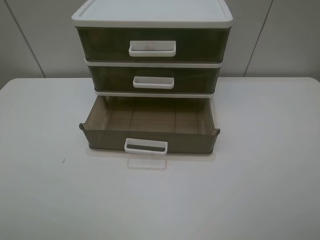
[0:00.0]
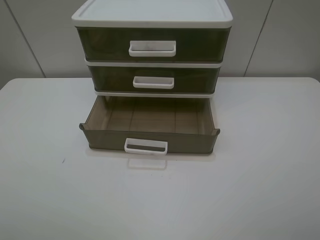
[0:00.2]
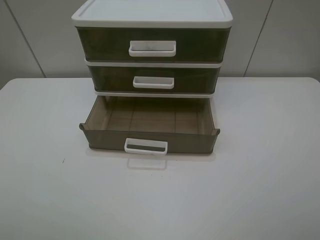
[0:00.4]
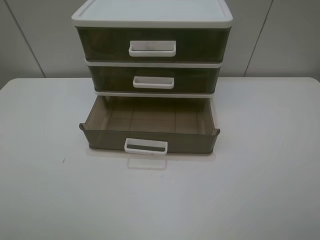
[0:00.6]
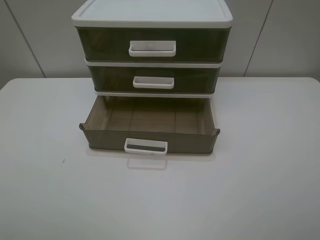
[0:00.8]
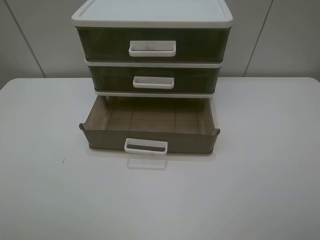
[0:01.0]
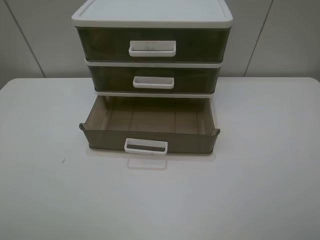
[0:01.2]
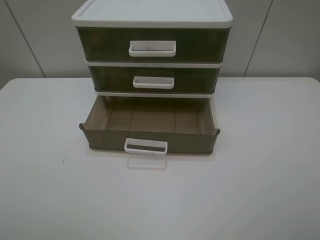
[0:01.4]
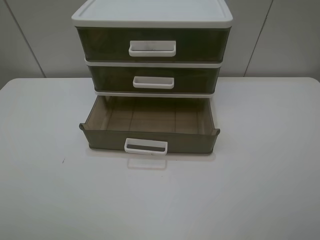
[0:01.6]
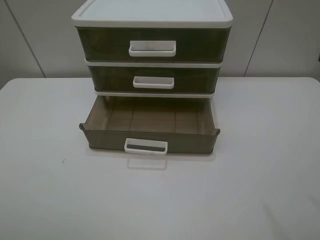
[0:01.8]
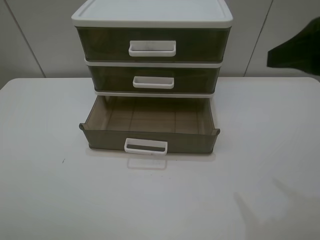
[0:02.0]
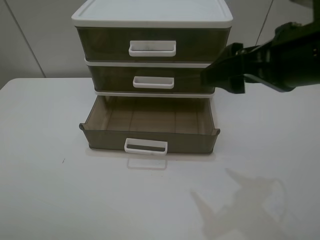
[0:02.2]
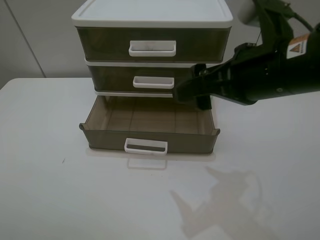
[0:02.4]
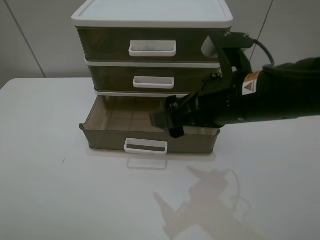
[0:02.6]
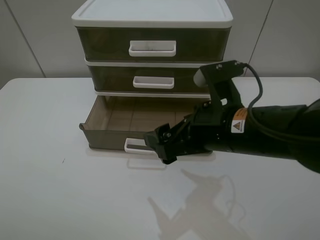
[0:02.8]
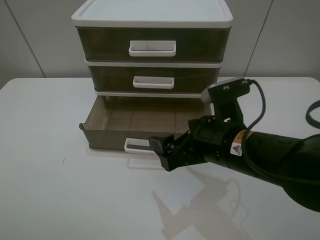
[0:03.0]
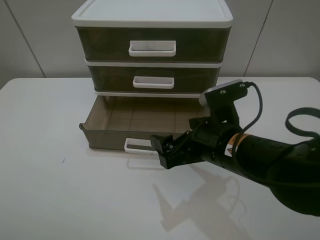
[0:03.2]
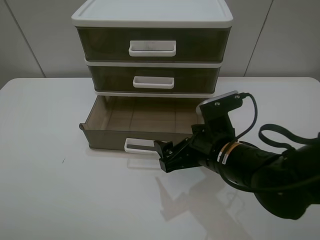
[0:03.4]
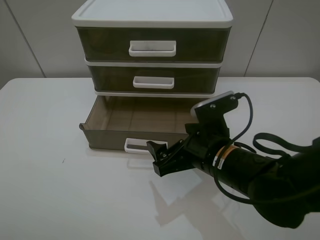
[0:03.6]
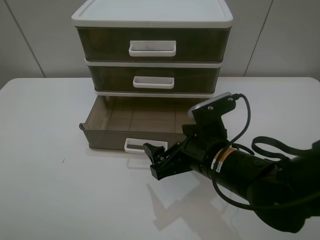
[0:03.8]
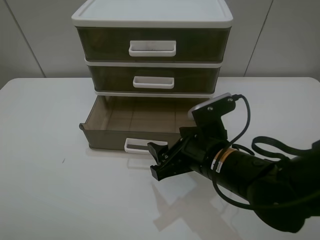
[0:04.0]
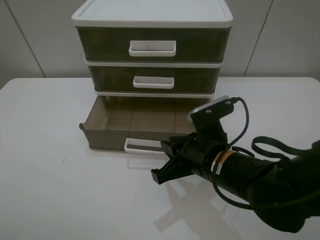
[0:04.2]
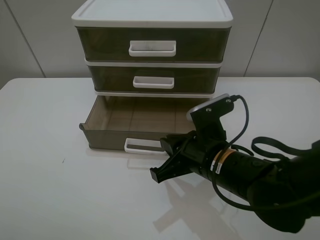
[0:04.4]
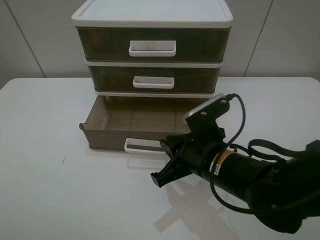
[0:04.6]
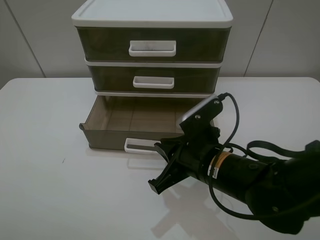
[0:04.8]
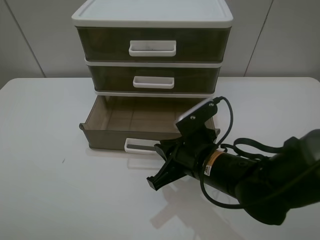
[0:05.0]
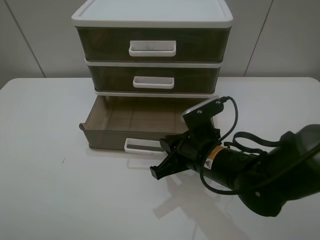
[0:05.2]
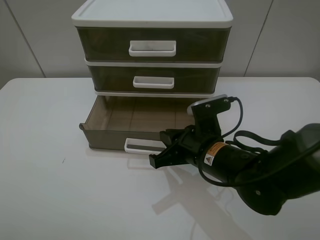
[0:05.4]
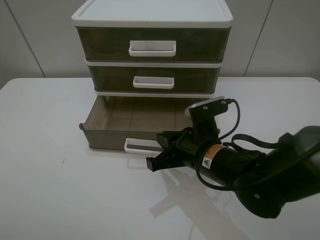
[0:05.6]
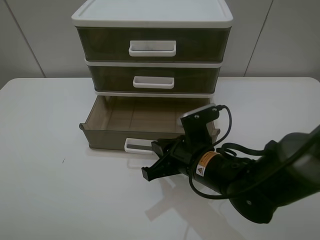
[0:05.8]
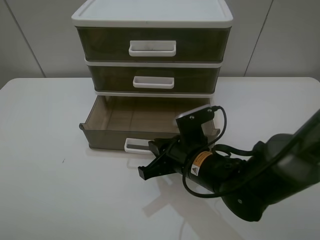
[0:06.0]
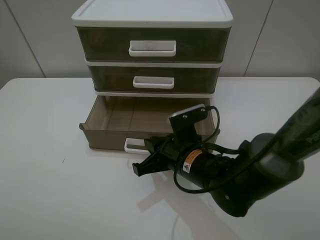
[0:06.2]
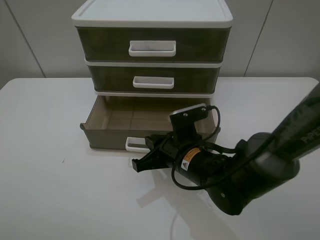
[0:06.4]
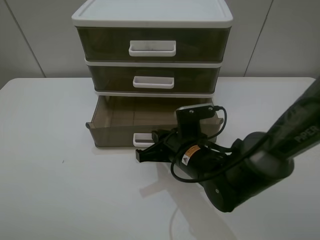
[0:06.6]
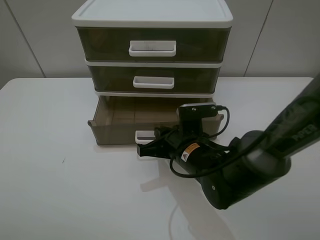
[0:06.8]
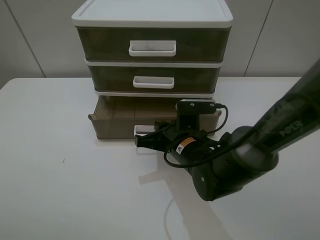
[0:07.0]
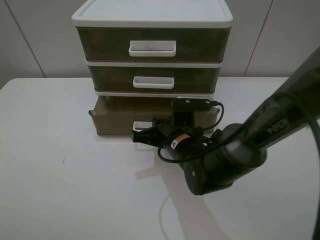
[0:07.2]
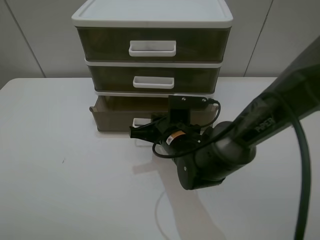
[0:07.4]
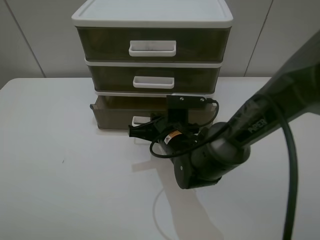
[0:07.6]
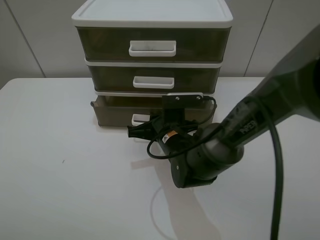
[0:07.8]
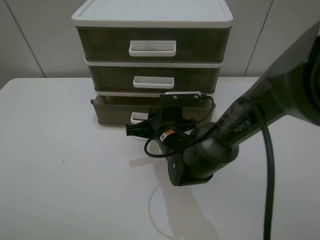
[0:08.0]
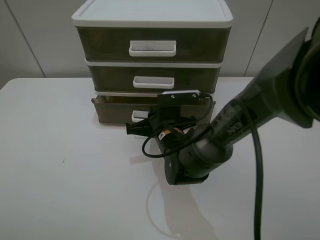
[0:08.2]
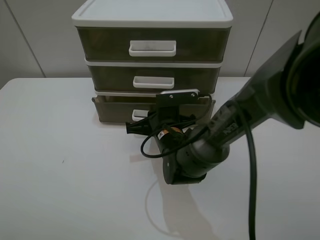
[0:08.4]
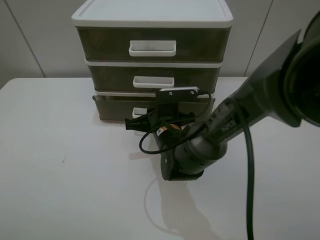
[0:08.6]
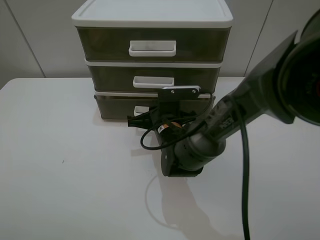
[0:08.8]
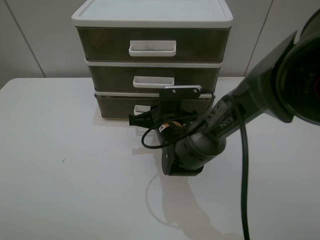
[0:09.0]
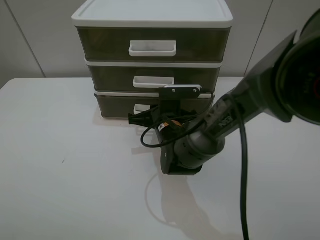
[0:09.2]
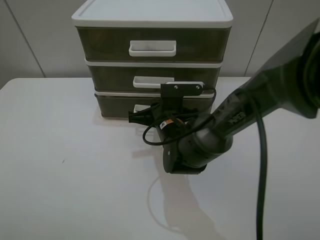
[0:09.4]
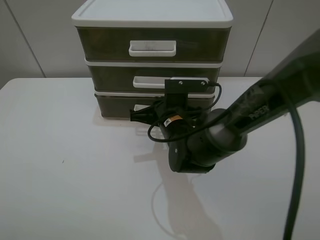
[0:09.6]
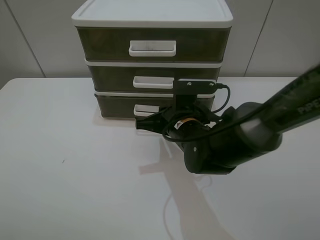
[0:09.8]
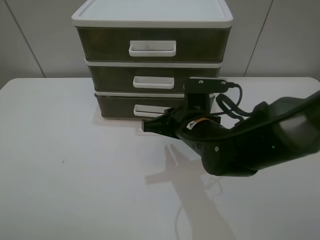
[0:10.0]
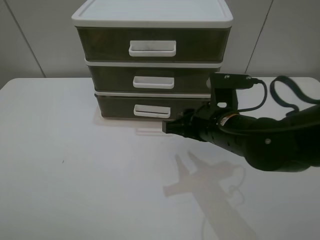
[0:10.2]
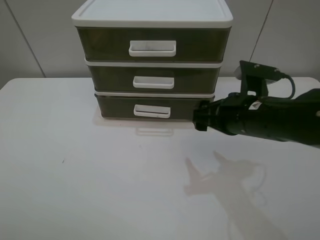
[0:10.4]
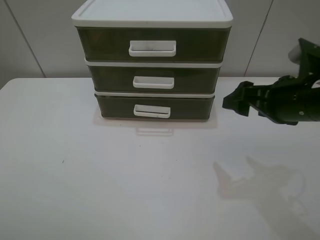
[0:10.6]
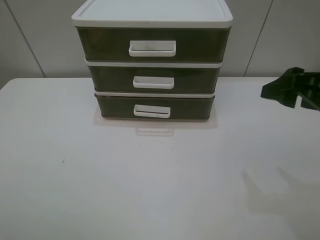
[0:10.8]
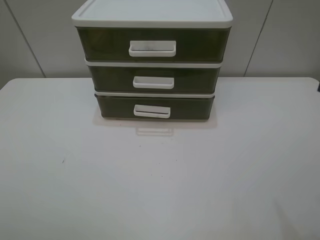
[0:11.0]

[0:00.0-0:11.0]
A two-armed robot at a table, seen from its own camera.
Task of the whole recording: close the bottom drawer.
Step, 0:00.0 to 0:06.2: Use the right gripper to contact the bottom layer of the storage cabinet.
Step, 0:06.4 to 0:09.2: Push the bottom drawer closed.
0:01.6 to 0:03.2: The right gripper heads to the left, downward and forward, covering some 30 cm.
0:03.2 to 0:04.8: The right gripper closes.
0:04.8 to 0:06.2: The right gripper changes place by approximately 5 cm.
0:06.2 to 0:07.8: The right gripper goes about 5 cm forward.
0:07.8 to 0:09.4: There are only small adjustments of the grippers.
0:09.4 to 0:11.0: The right gripper goes about 40 cm to the right, upward and backward, and opens.

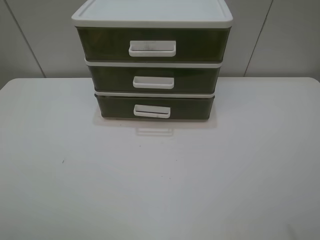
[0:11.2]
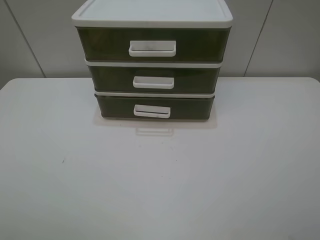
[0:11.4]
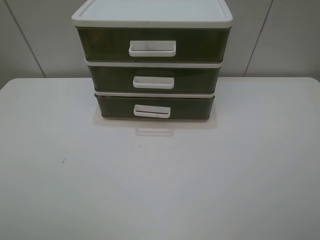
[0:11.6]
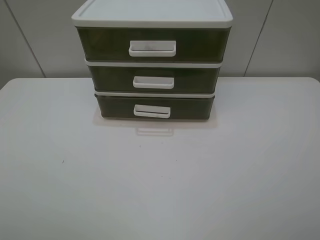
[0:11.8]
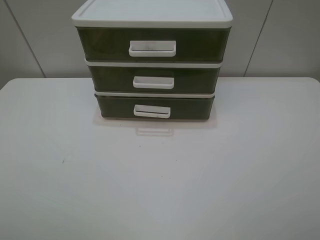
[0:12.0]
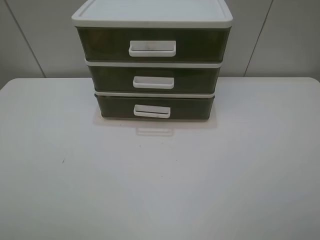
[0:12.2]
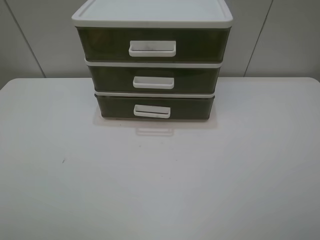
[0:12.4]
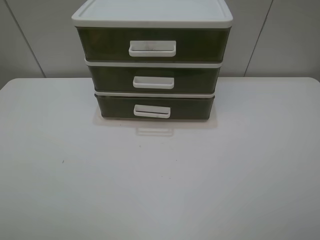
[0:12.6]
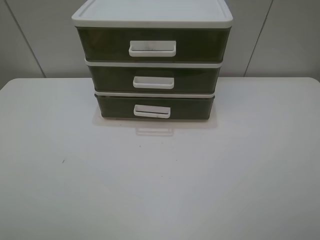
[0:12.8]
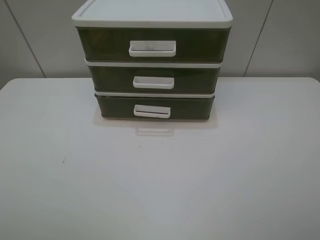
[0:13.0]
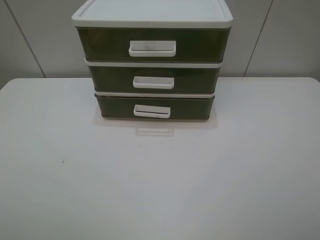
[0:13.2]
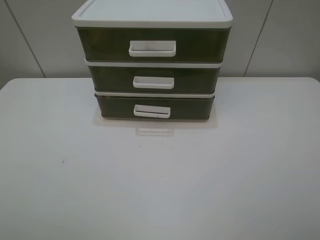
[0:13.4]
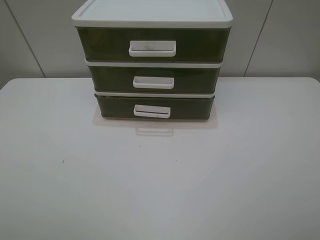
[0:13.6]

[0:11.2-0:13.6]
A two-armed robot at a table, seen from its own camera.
Task of the whole recording: close the bottom drawer.
0:12.4 to 0:13.6: Both grippers stay about where they are.
